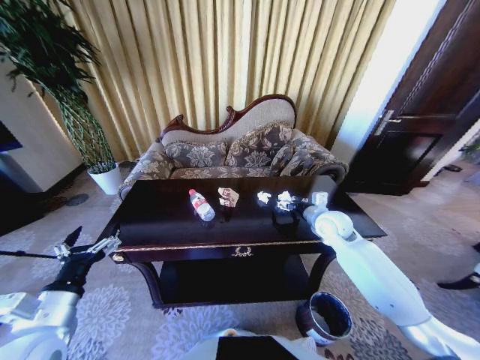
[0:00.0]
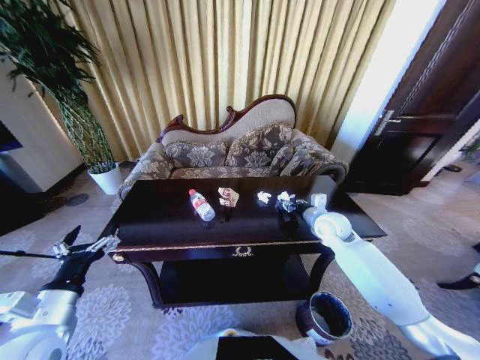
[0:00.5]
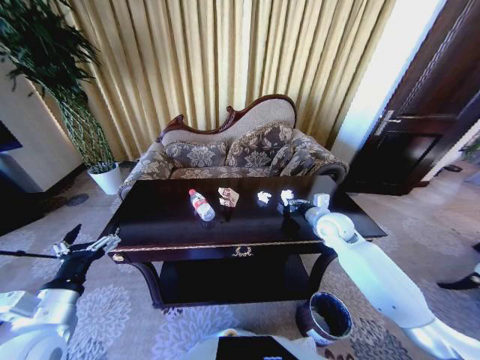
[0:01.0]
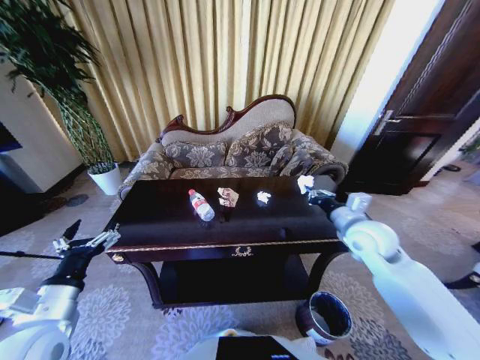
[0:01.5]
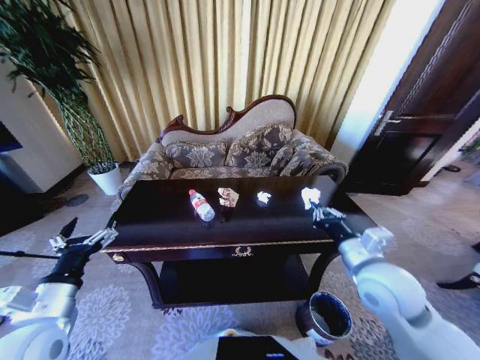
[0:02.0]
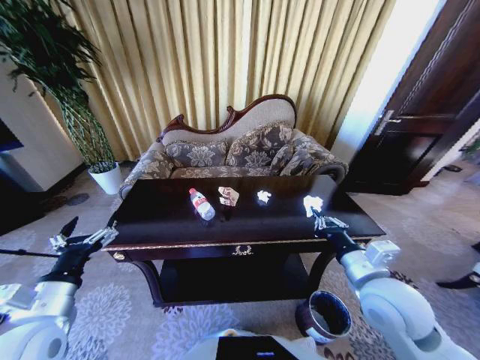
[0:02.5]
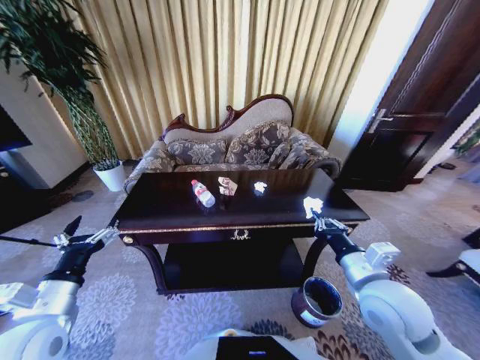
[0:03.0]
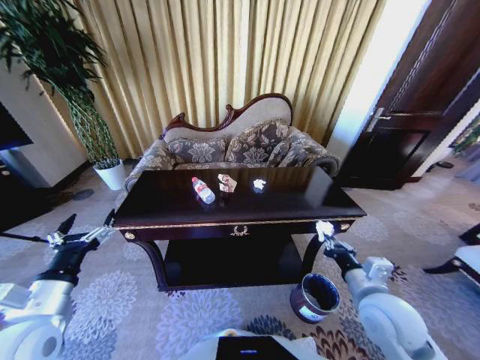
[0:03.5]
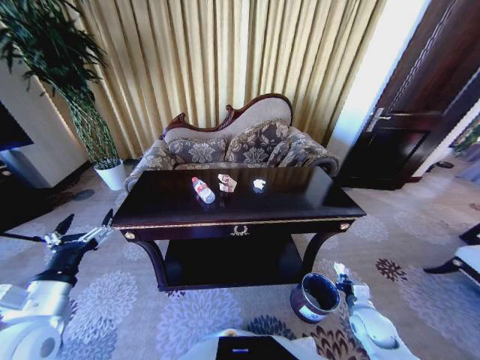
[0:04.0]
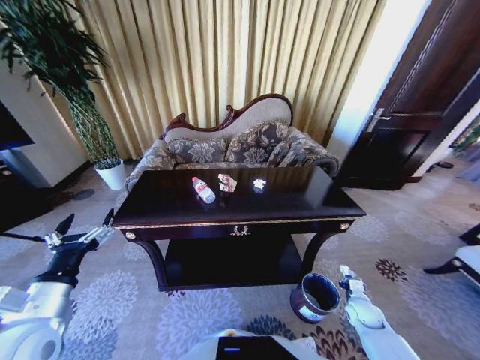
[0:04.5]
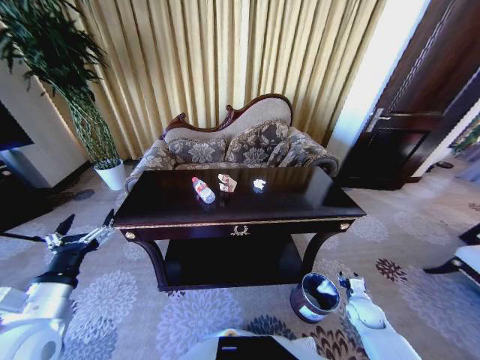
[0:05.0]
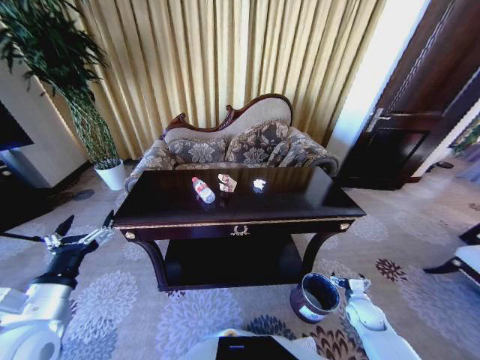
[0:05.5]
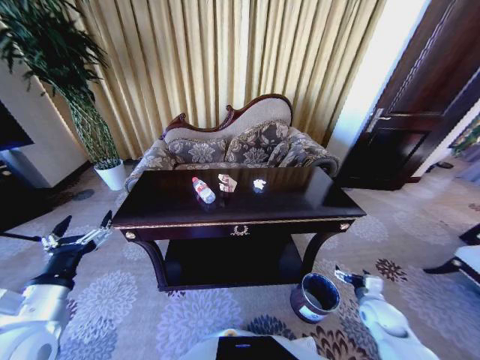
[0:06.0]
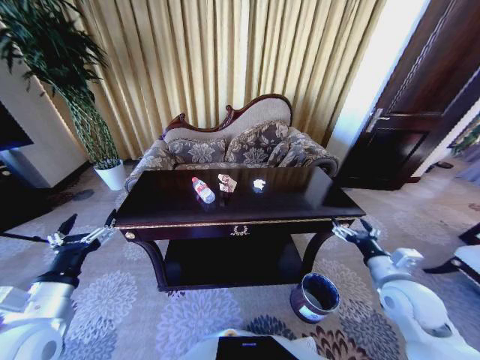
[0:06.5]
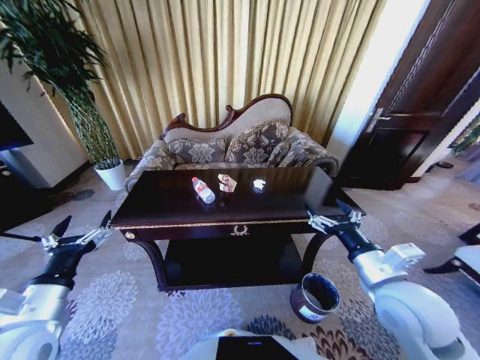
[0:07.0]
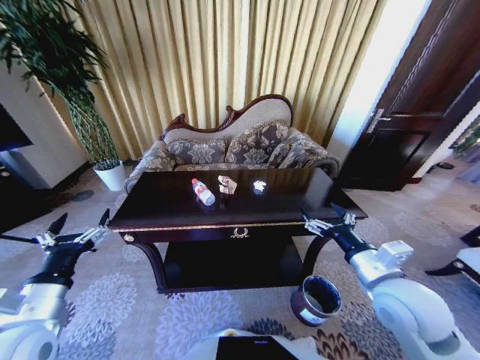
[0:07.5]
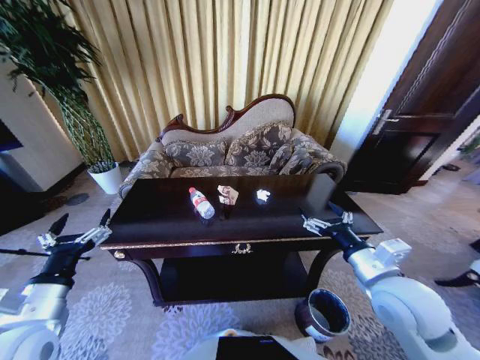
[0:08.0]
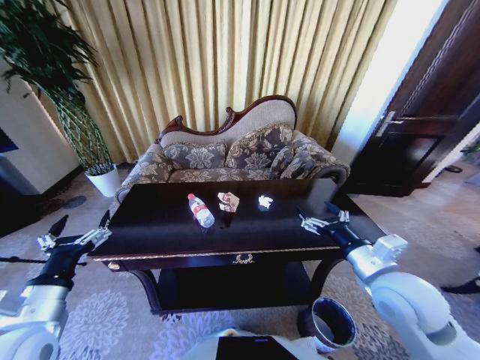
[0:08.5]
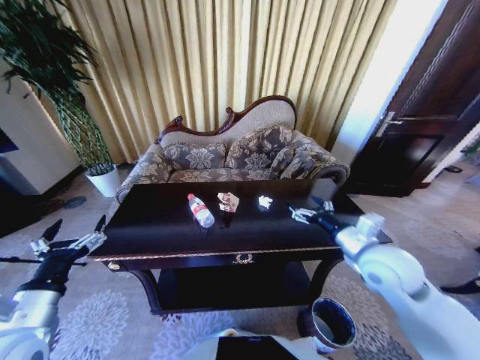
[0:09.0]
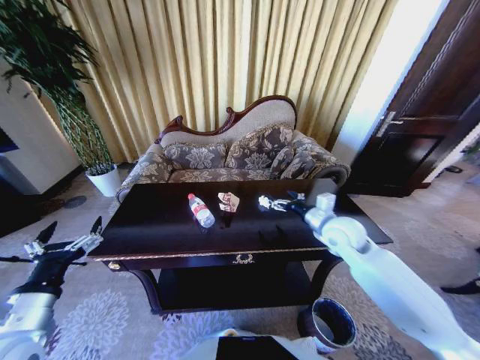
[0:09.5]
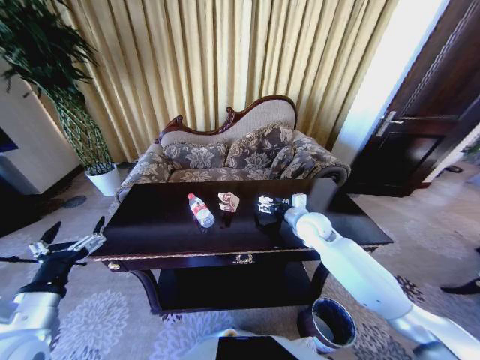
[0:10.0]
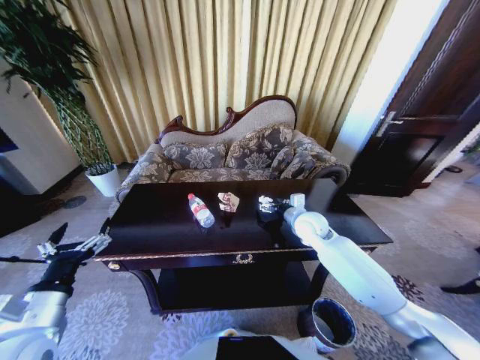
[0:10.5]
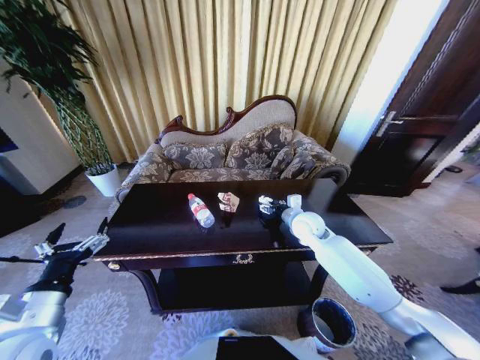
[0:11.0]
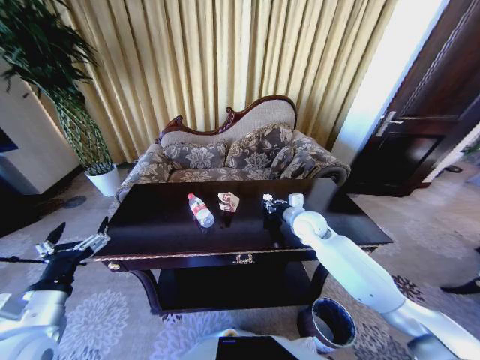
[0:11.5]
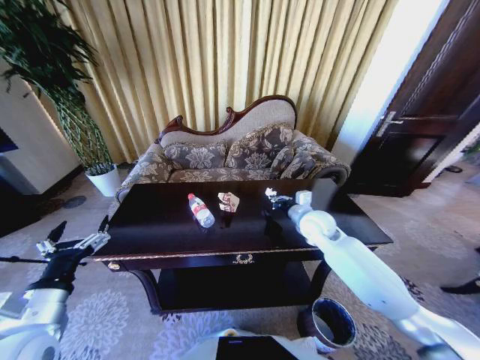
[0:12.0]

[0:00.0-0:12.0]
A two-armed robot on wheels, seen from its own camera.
Task of the whole recording: Move to the front of the table and place the trash on the table into the trash bin.
0:00.0 to 0:02.0: The right gripper heads backward, covering some 20 cm, and closes up.
0:02.0 to 0:04.0: The right gripper shifts about 25 cm downward and to the right.
0:04.0 to 0:06.0: The right gripper opens up.
0:06.0 to 0:08.0: The right gripper goes approximately 30 cm upward and to the left.
0:08.0 to 0:10.0: The right gripper goes about 20 cm forward.
0:10.0 to 0:12.0: The right gripper closes up.

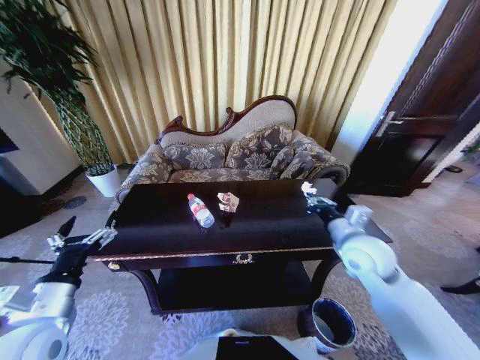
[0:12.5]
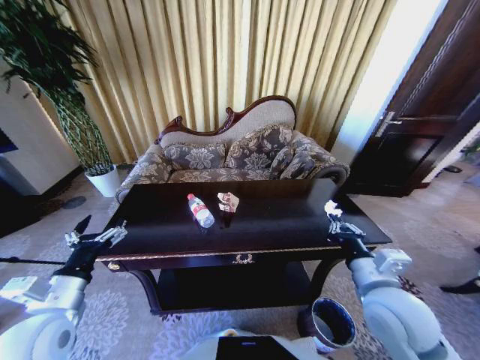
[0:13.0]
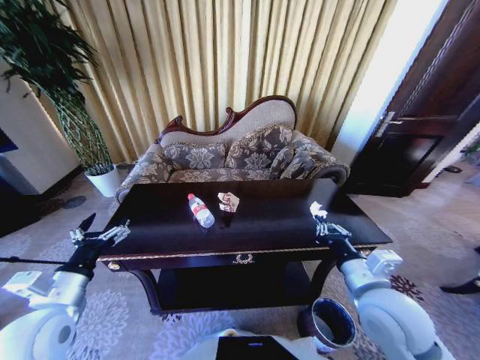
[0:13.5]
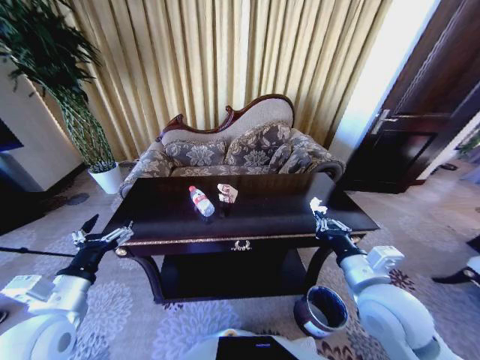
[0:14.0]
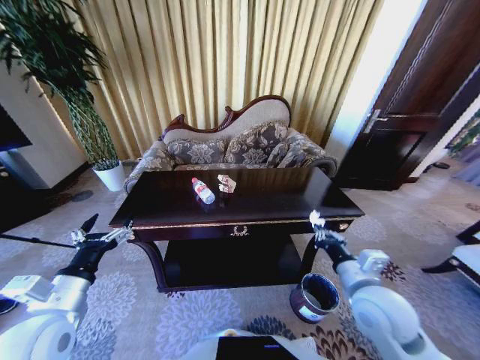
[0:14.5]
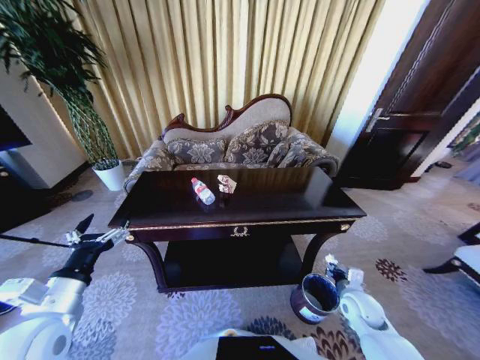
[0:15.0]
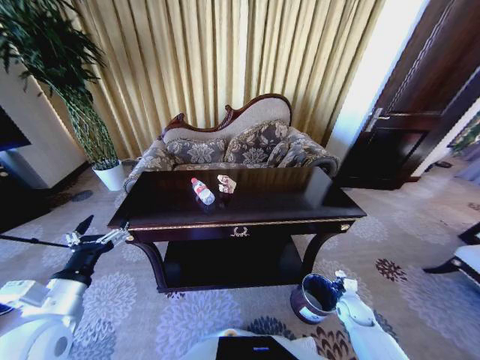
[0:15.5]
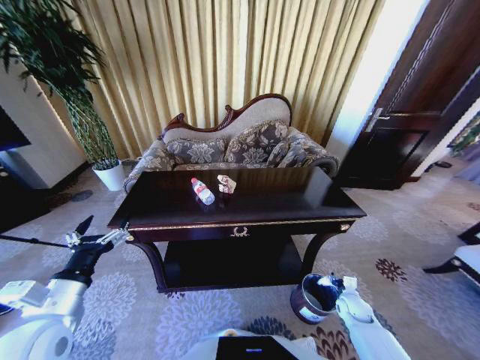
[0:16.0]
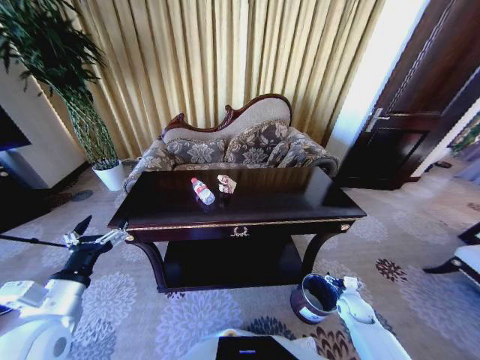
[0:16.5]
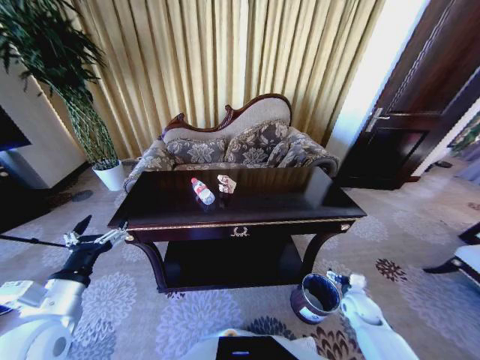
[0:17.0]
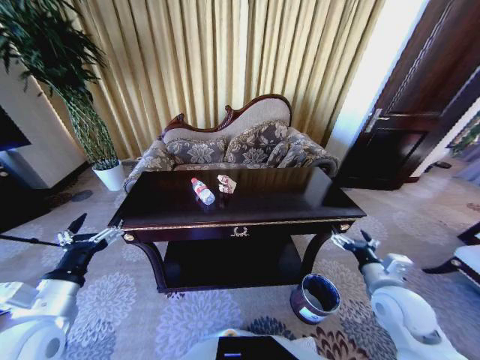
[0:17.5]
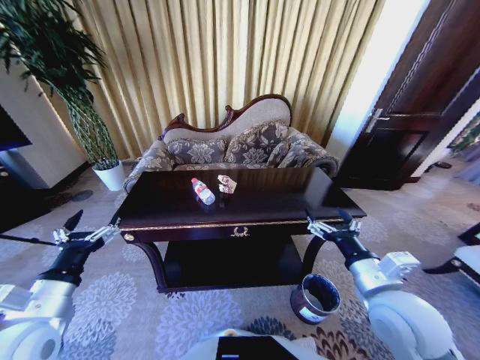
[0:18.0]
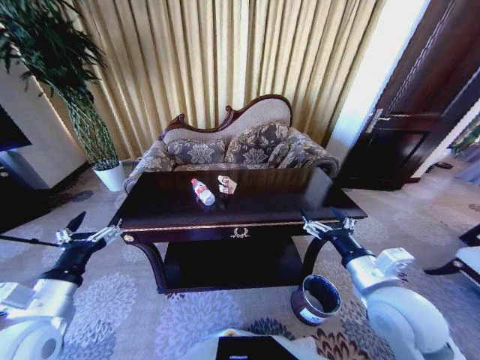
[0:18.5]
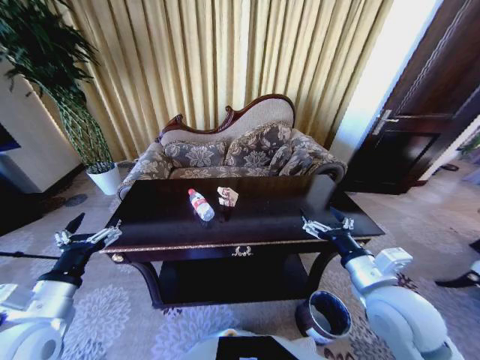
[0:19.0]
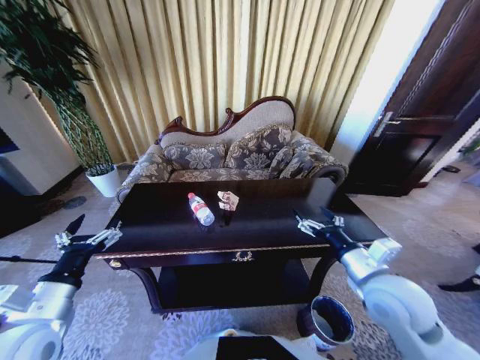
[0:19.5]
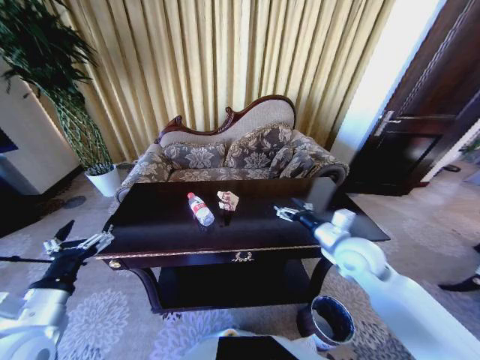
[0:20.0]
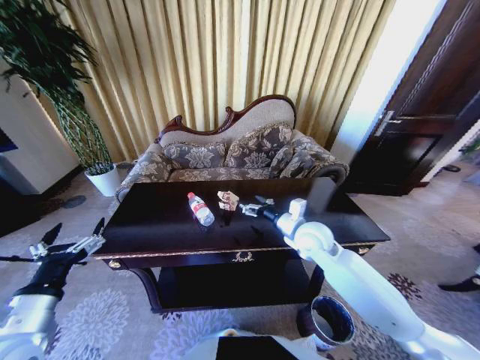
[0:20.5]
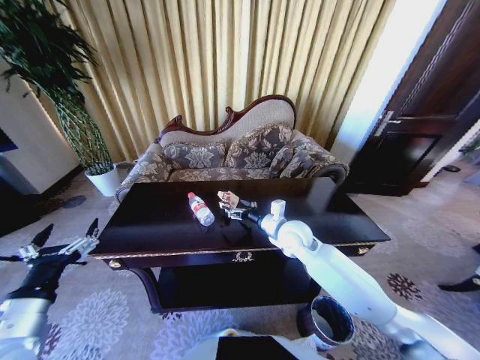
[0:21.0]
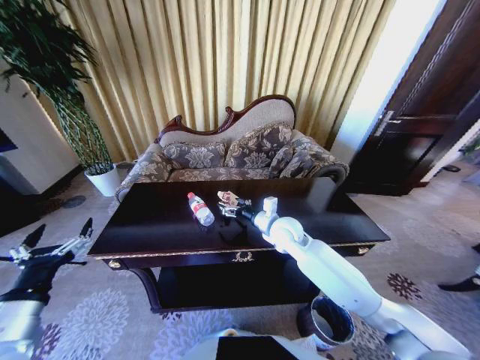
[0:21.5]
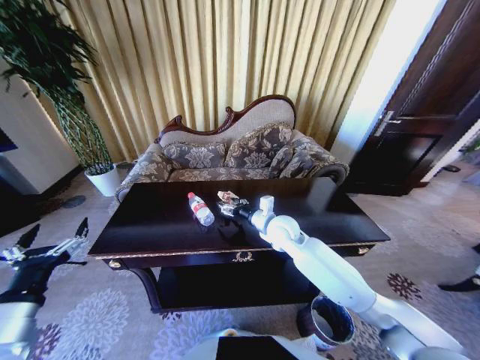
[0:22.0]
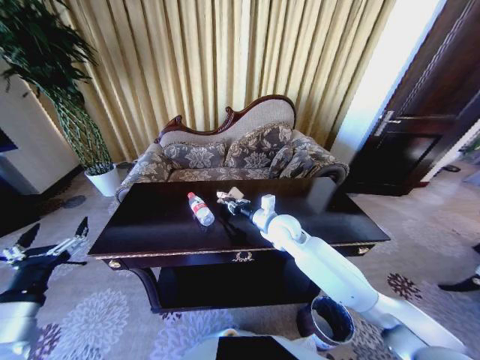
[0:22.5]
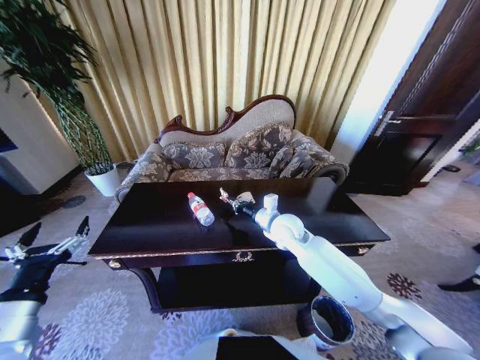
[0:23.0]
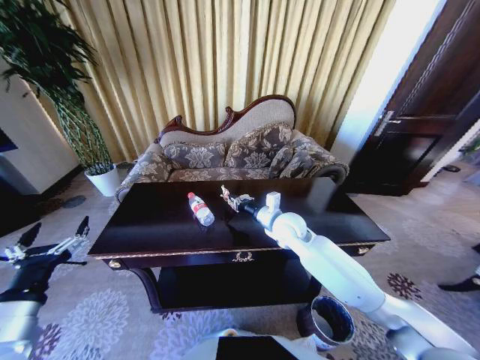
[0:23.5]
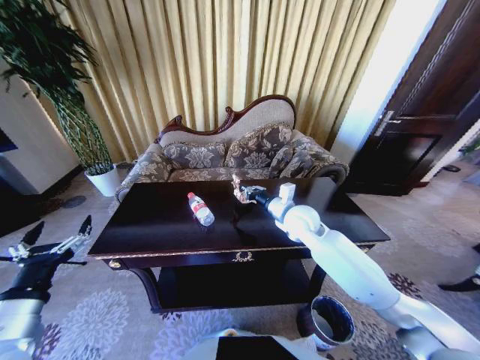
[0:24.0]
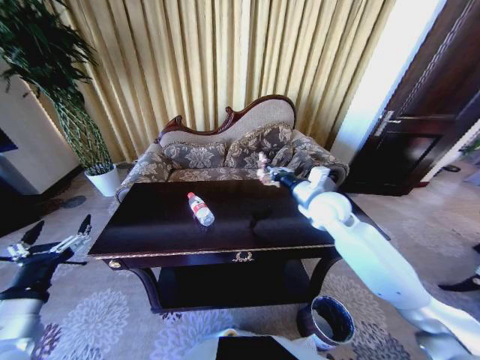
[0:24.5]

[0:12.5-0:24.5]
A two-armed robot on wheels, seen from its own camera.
Task of the whole recording: Move to the front of the table and place the trash on the table into the trash bin.
0:12.5 to 0:14.5: The right gripper heads backward, covering approximately 10 cm.
0:14.5 to 0:16.5: The right gripper is displaced downward and to the right by some 30 cm, and opens up.
0:16.5 to 0:18.5: The right gripper moves upward and to the left, some 35 cm.
0:18.5 to 0:20.5: The right gripper heads forward, covering approximately 20 cm.
0:20.5 to 0:22.5: The right gripper travels to the left by about 5 cm, and closes.
0:22.5 to 0:24.5: The right gripper moves to the right and upward, some 15 cm.

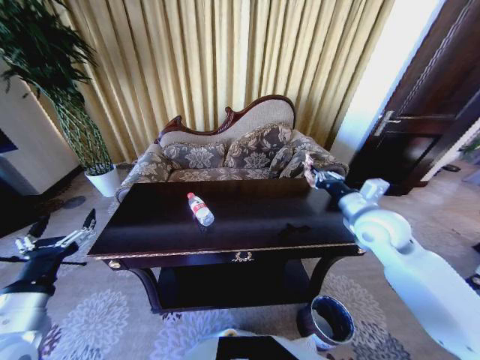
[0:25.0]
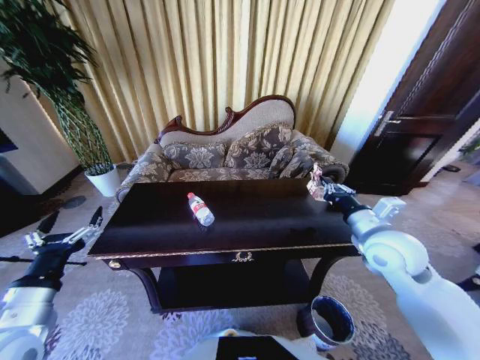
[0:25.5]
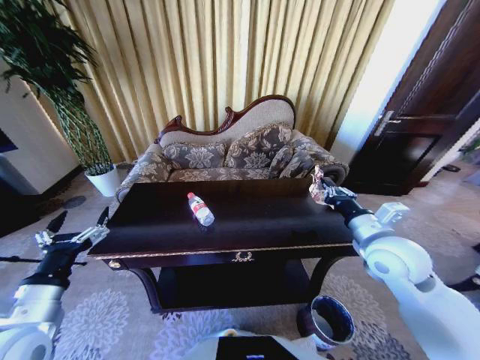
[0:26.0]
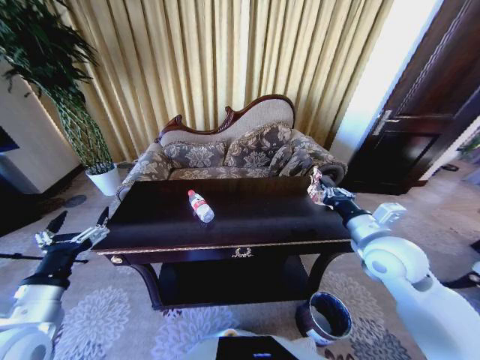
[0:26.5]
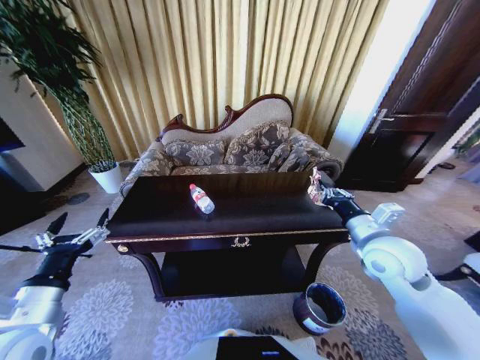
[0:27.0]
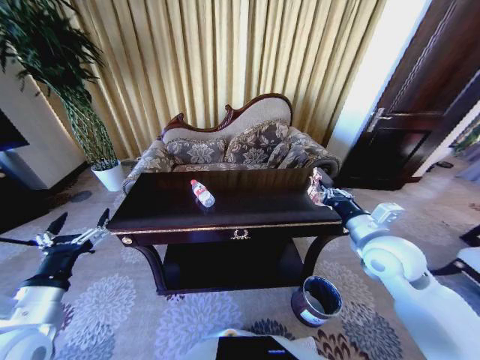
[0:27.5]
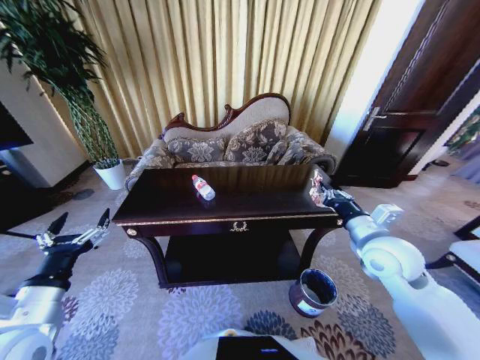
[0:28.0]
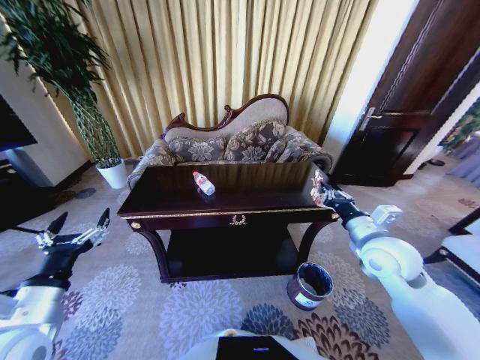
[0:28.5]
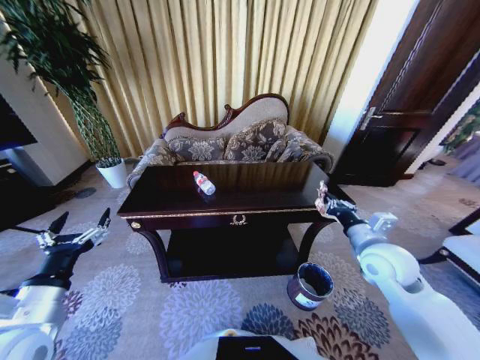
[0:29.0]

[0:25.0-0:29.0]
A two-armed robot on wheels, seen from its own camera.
Task of the whole recording: Move to the front of the table and place the trash on the table into the trash bin.
0:25.0 to 0:27.0: The right gripper heads backward, covering approximately 5 cm.
